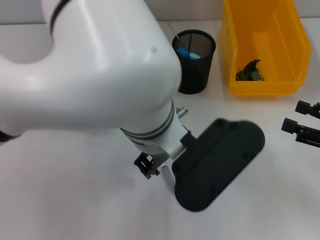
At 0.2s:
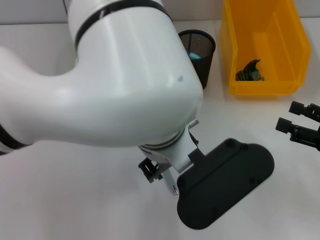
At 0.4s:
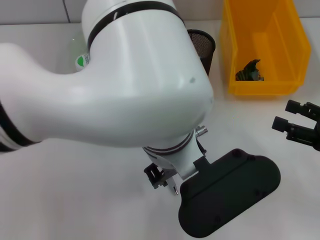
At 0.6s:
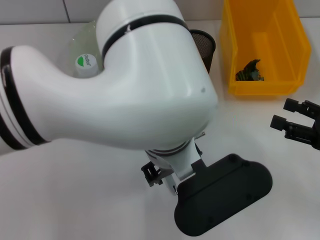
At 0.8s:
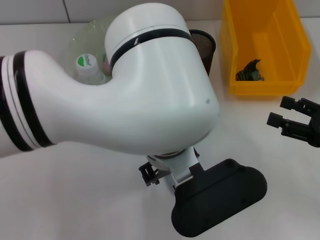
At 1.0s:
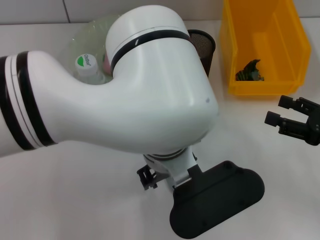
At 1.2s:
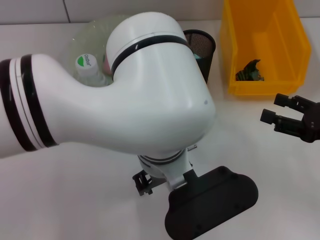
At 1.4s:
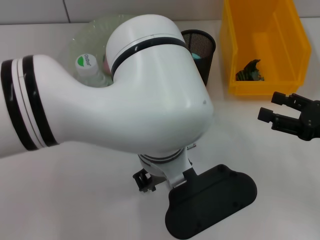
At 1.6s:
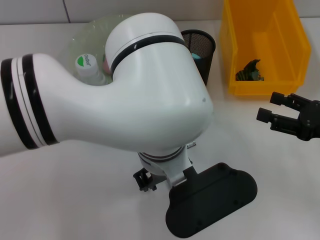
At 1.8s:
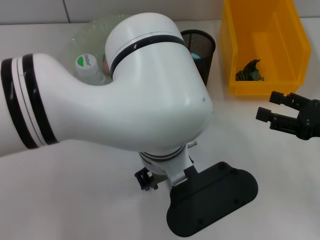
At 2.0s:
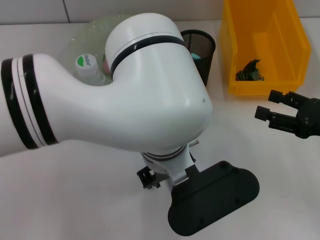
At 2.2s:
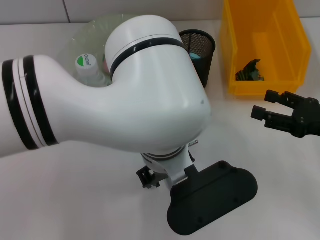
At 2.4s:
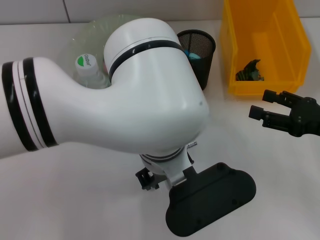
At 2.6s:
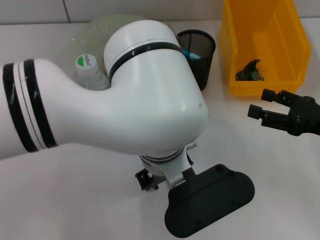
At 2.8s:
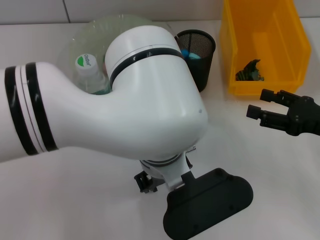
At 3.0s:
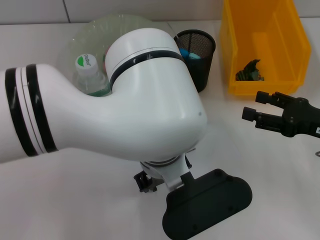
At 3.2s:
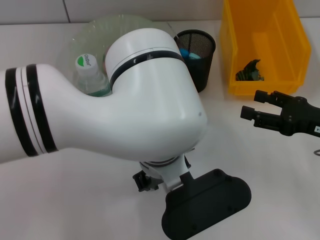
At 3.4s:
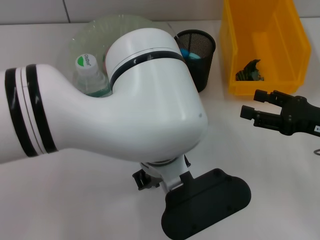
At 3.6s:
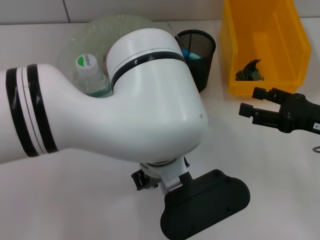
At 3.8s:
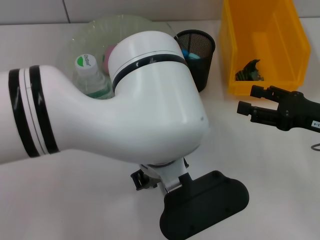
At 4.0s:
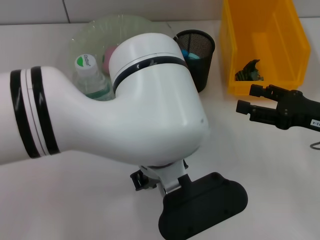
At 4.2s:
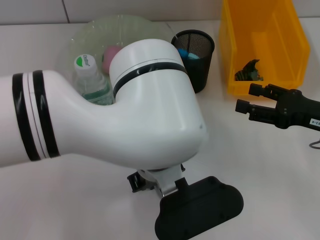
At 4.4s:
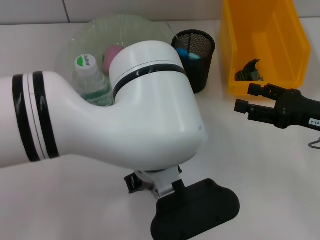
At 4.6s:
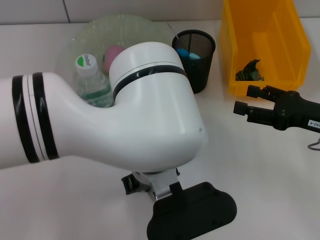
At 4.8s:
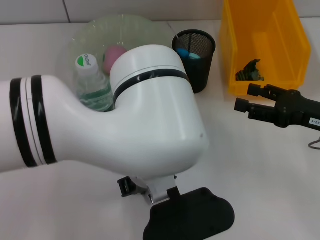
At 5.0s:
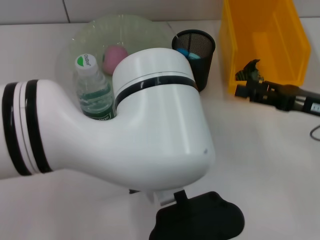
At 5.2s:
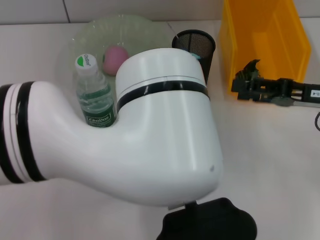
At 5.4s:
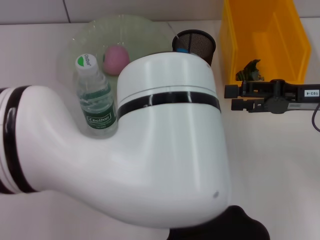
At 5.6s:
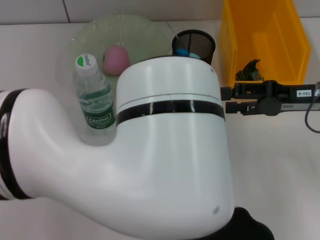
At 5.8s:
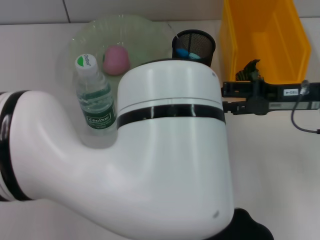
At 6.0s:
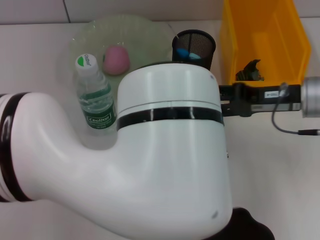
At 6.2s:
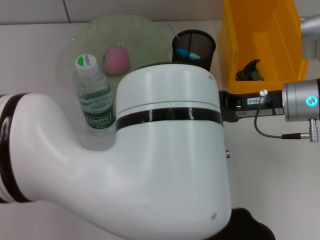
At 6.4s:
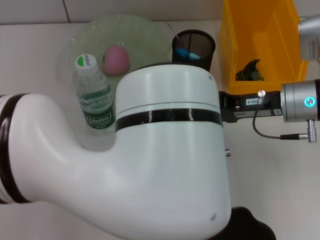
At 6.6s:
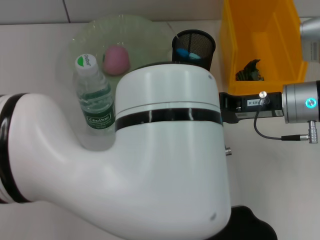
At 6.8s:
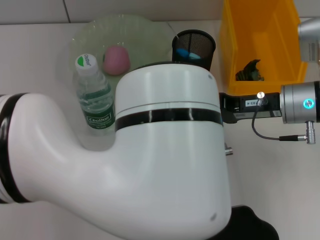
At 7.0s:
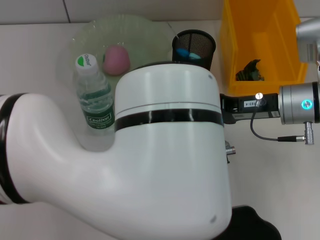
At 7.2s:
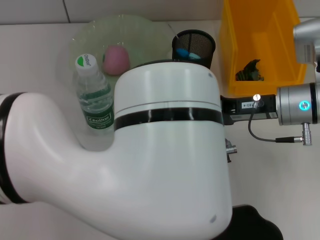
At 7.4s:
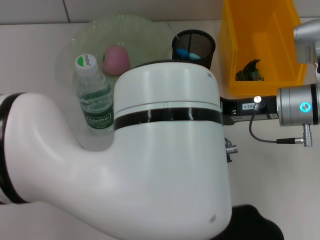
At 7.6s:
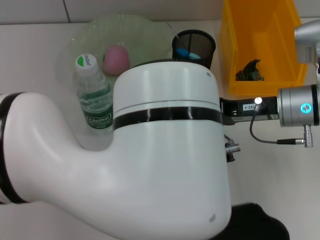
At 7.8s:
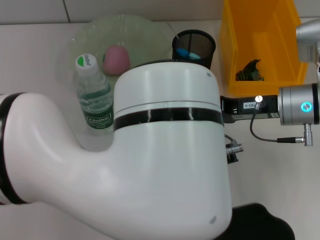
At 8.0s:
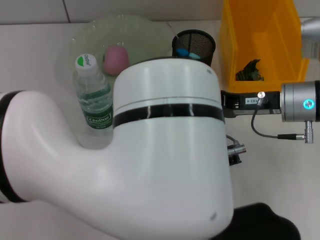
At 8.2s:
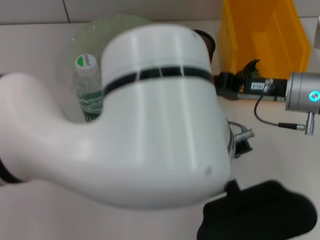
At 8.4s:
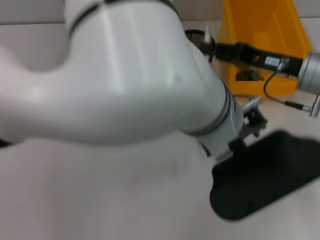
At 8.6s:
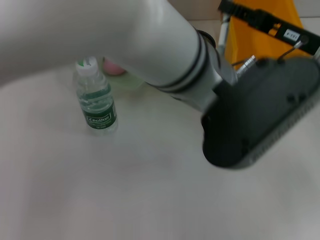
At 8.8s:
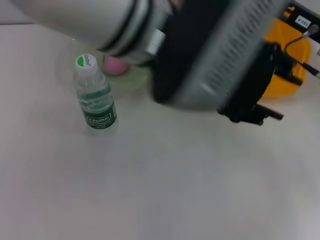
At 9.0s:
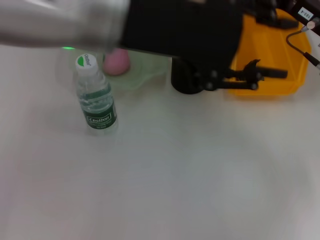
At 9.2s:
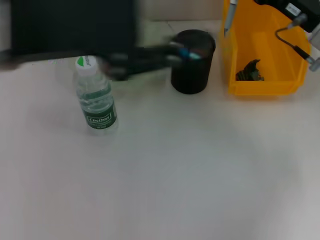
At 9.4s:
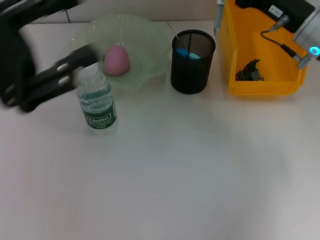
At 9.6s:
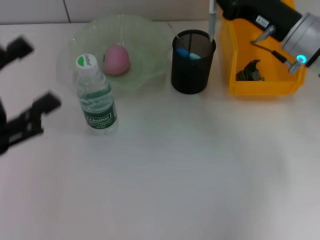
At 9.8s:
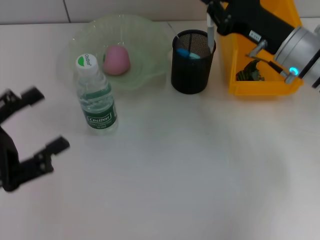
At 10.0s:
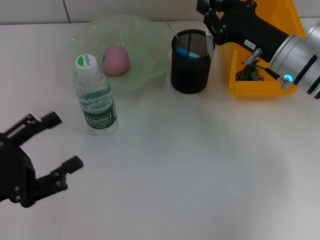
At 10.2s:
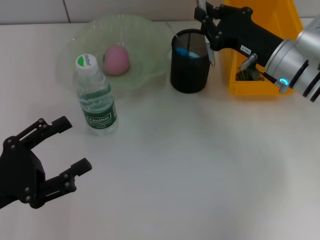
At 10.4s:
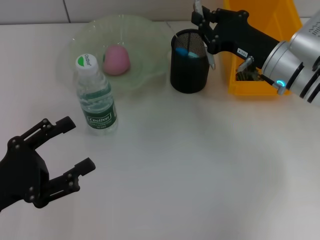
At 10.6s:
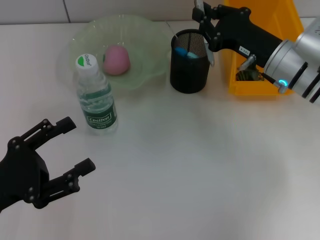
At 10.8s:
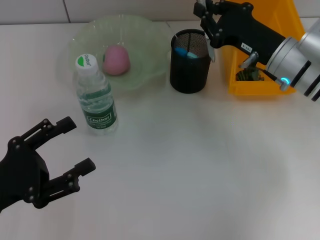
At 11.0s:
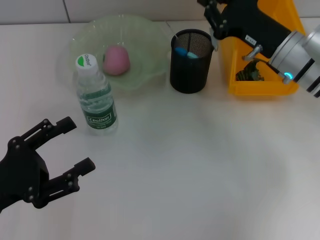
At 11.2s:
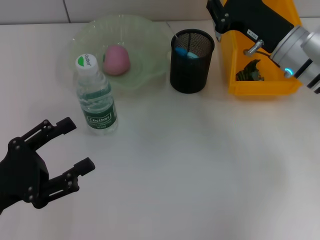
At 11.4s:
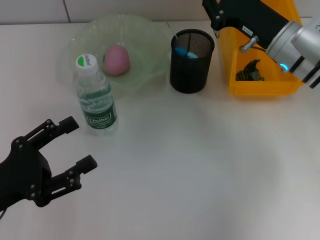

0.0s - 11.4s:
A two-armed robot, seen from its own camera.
Step, 0.0s - 4.6s: Grab the gray spring-action pen with the left hand.
Step, 4.8s - 7.8s: Pass the gray spring-action pen from the left hand to the right hand.
1.4s - 4.2s: The grippers move only a little.
4.2s - 5.6s: The left gripper ends up some 5 cm from where it was; the right gripper moves roughly 5 cm.
5.6s - 7.2s: The right gripper heads to the left, covering roughly 5 cm, and closes up.
7.2s - 8.6s: The left gripper travels upward and forward by roughly 10 cm, and opens its fingers, while the right gripper ends up some 5 cm from where it was.
8.6s - 10.0s: The right gripper moves some 5 cm; the left gripper moves to the left and downward, about 35 cm, and opens its fingers.
10.0s - 11.4s: The grippers move only a little.

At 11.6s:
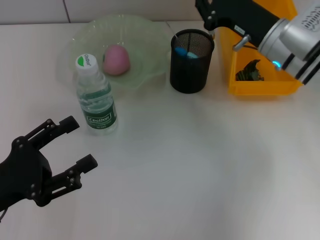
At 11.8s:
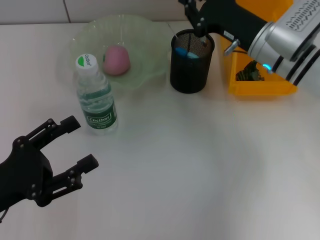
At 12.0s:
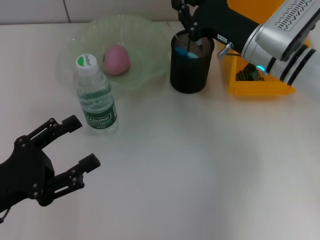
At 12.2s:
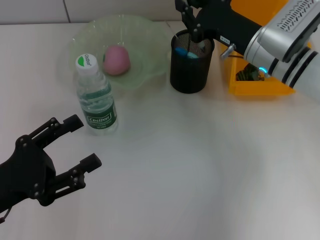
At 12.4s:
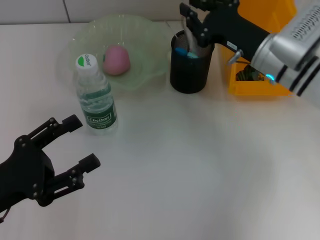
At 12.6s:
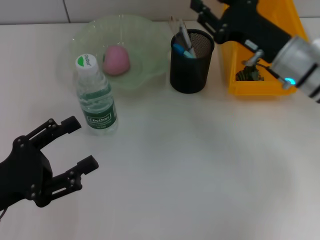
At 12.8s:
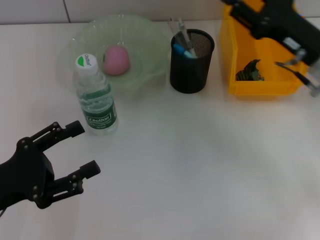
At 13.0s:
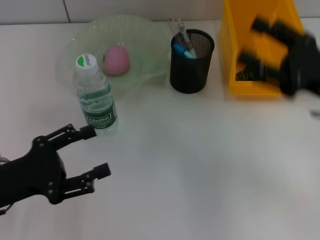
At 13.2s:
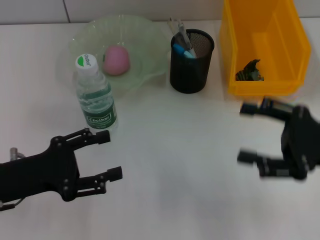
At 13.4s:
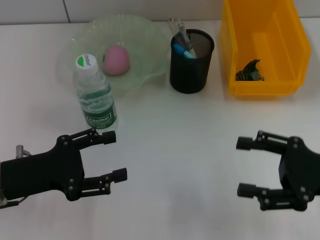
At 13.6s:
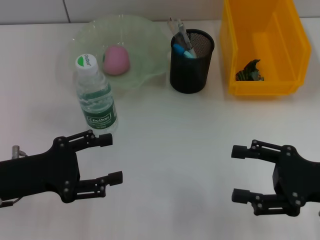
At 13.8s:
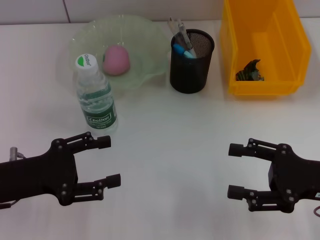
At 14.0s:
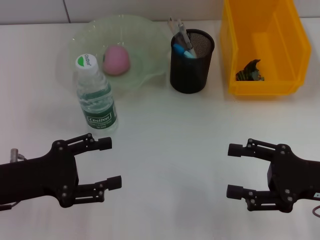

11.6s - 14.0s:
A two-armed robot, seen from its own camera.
11.6s - 12.8s: The right gripper travels to the right and backward by roughly 10 cm, and opens its fingers.
12.8s - 14.0s: The right gripper shifts about 10 cm backward, and opens.

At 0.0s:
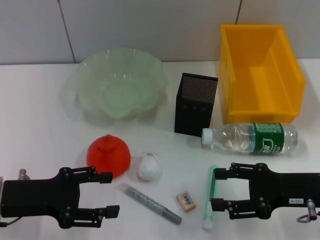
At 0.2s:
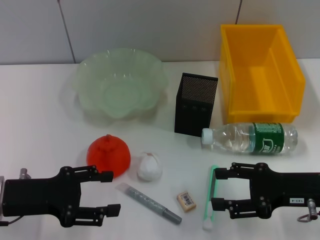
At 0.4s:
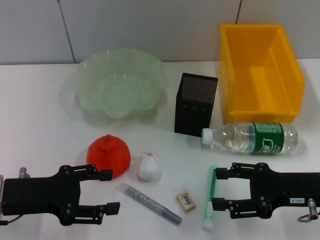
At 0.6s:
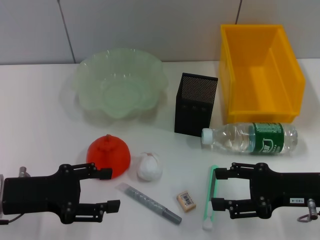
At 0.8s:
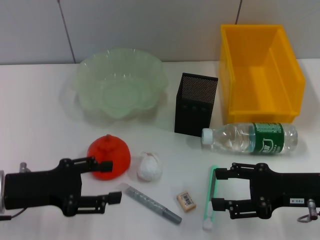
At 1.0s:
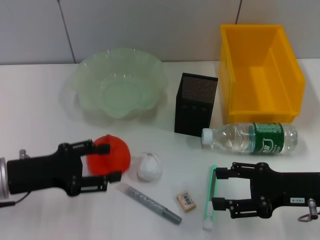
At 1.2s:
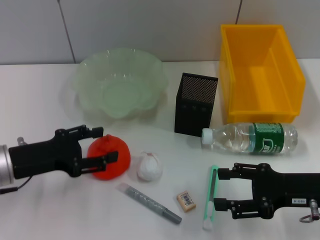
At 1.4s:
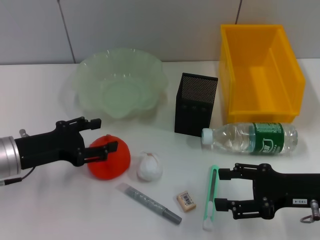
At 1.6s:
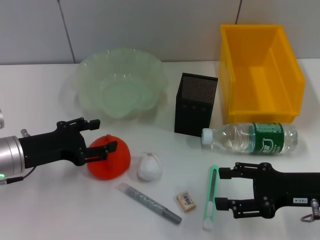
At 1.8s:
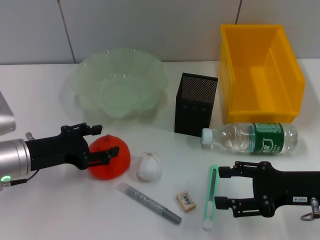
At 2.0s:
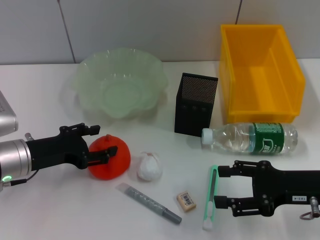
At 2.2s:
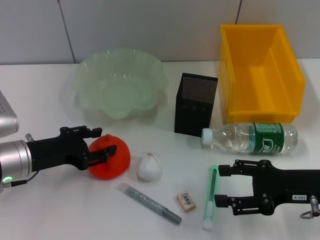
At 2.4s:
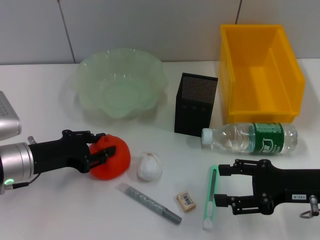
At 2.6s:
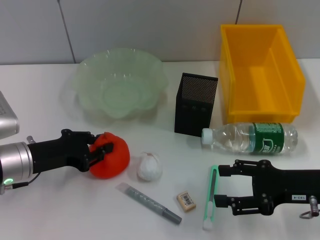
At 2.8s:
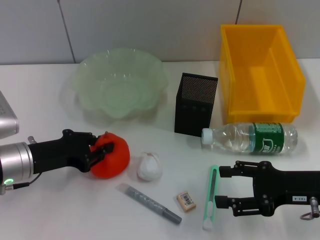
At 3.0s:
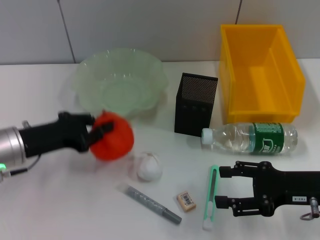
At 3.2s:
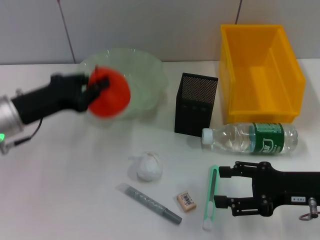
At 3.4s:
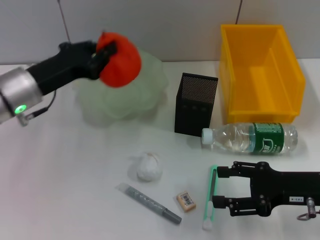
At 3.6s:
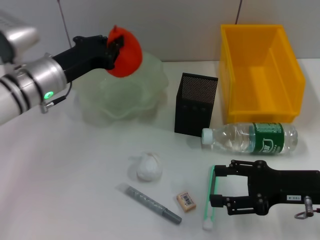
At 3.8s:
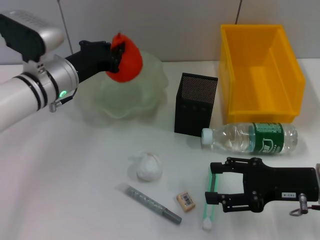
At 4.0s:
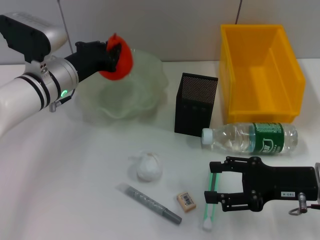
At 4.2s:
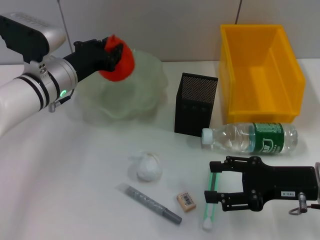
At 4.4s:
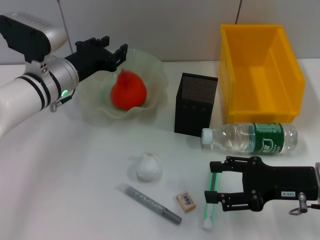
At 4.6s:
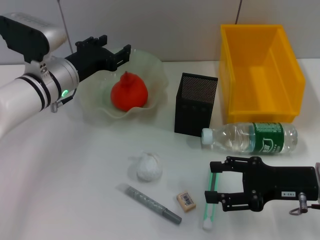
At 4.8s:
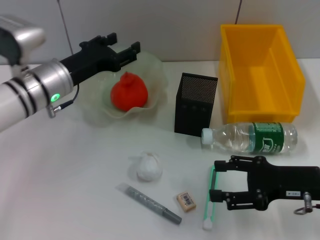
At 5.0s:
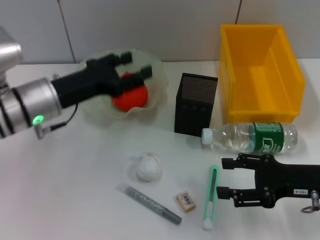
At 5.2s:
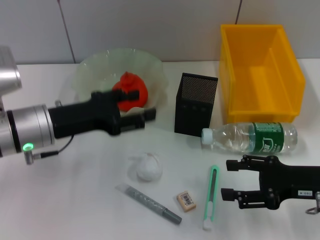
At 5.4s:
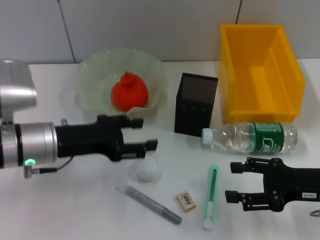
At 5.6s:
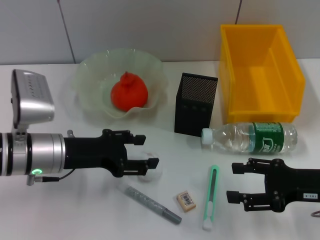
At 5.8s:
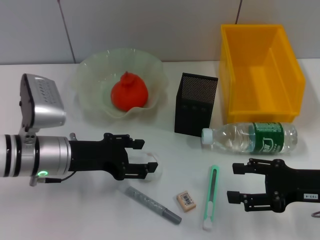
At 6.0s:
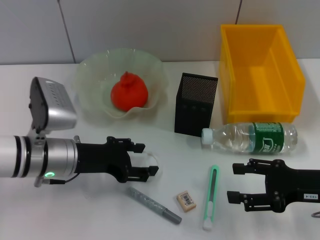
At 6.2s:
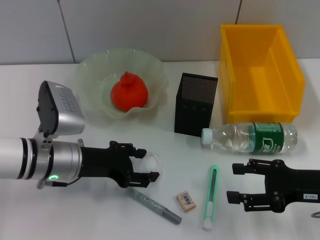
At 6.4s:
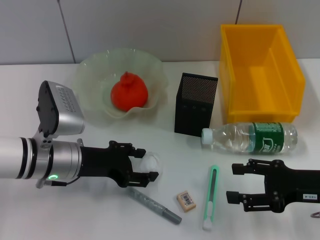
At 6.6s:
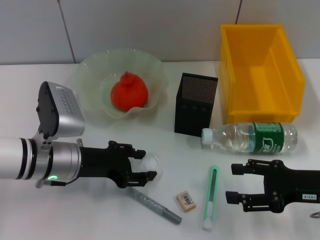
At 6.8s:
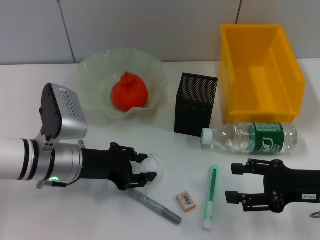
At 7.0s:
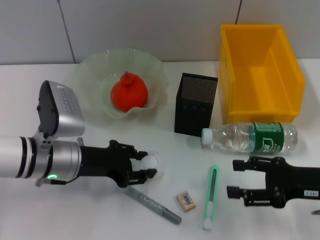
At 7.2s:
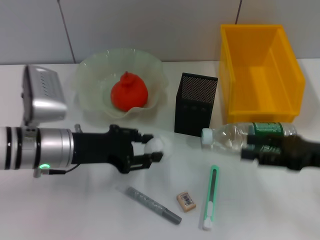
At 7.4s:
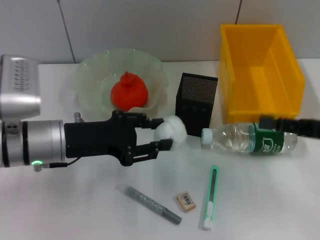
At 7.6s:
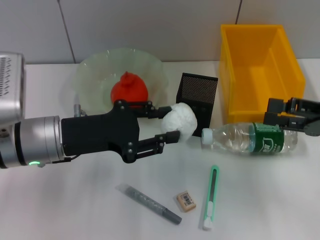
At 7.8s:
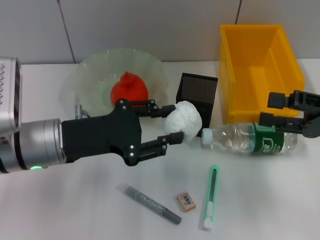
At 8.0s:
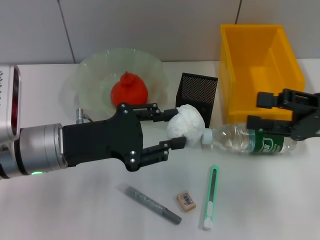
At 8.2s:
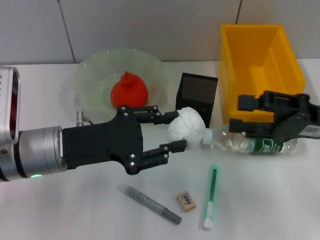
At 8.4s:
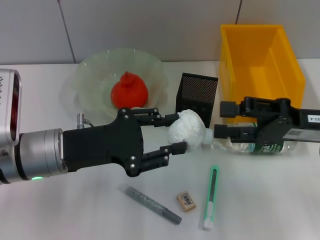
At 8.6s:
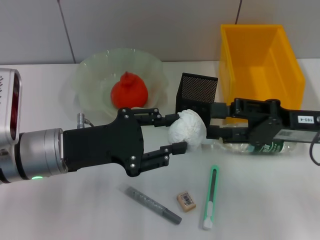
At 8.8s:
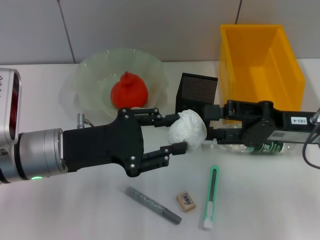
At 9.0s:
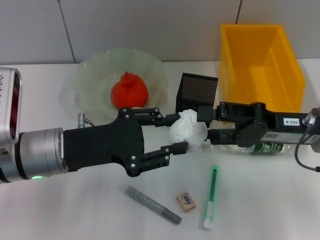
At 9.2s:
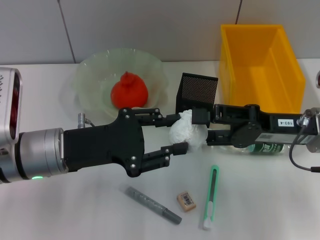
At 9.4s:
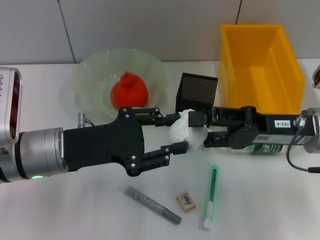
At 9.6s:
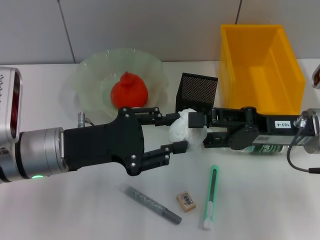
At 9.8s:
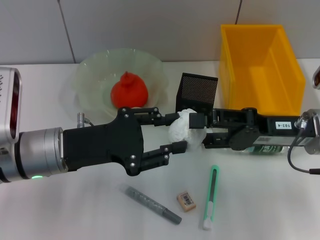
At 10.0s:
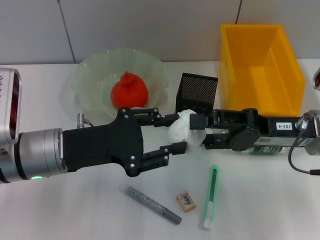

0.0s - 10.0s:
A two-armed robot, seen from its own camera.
Step, 0.0s - 2.6s: Grab the orange with the left hand.
Step, 2.8s - 4.4s: Place the orange into the fruit bowl with the left hand.
Step, 4.6s - 6.6s: Grab the paper ball with the left hand.
0.0s - 1.4s: The grippers stay close to where they were, moving slightly.
1.4s - 2.8s: The left gripper closes.
2.8s - 4.2s: The left gripper moves forward and to the right, roughly 15 cm.
4.2s - 5.8s: The left gripper is displaced backward by roughly 10 cm, and opens up.
5.8s - 7.2s: The left gripper closes up.
7.2s - 8.6s: The right gripper travels to the left by roughly 5 cm.
8.6s - 10.0s: The grippers move only a little.
